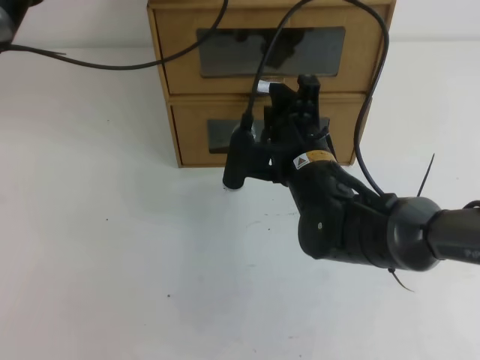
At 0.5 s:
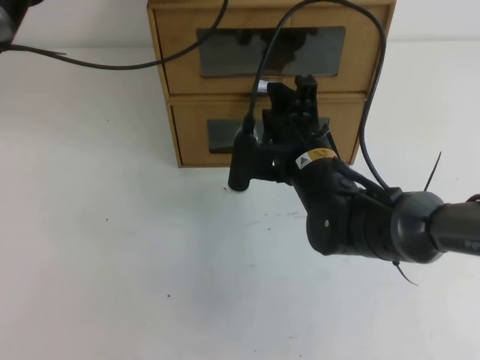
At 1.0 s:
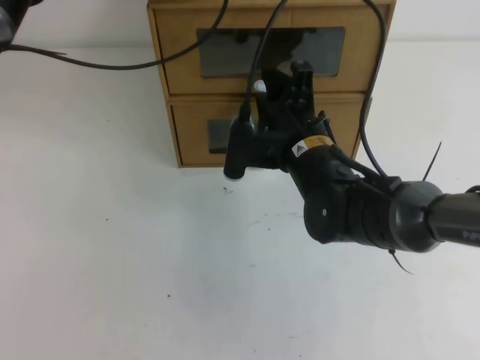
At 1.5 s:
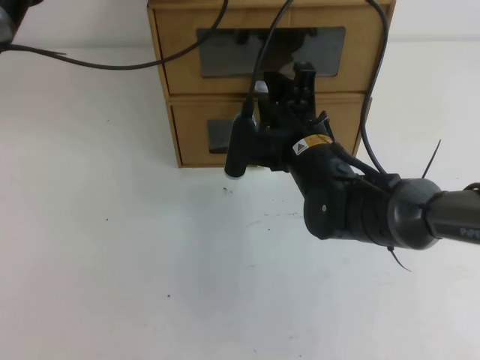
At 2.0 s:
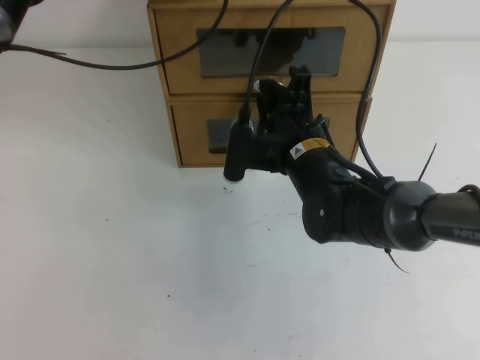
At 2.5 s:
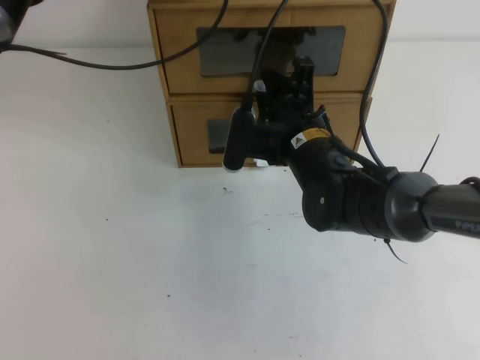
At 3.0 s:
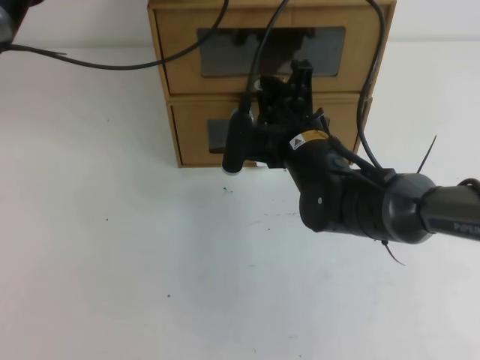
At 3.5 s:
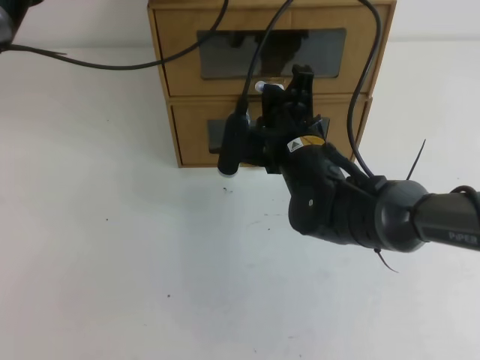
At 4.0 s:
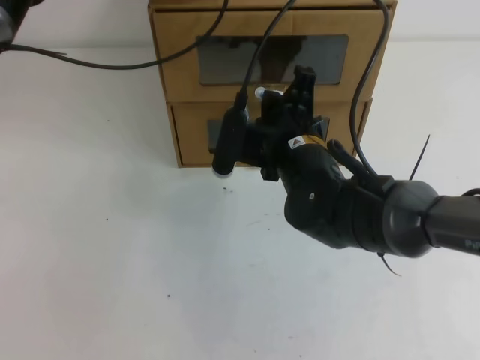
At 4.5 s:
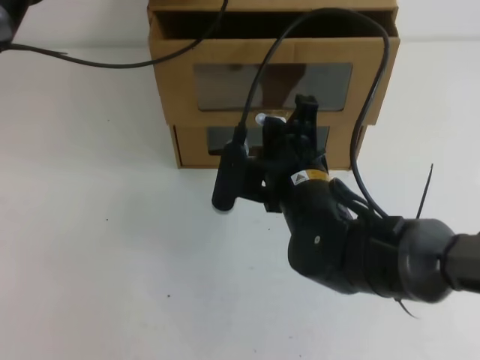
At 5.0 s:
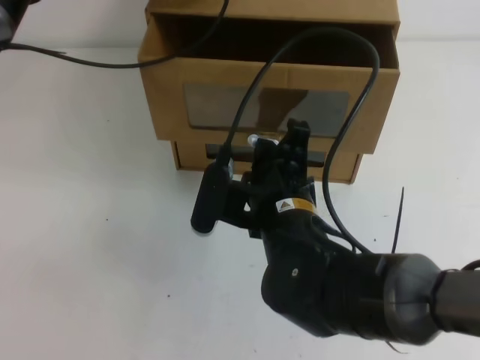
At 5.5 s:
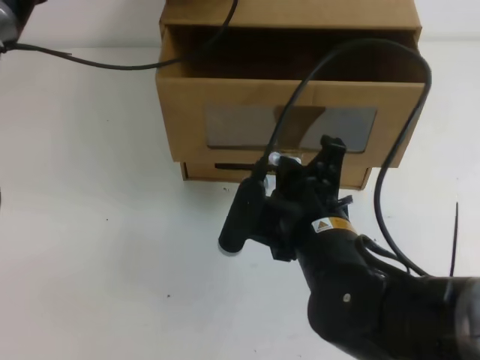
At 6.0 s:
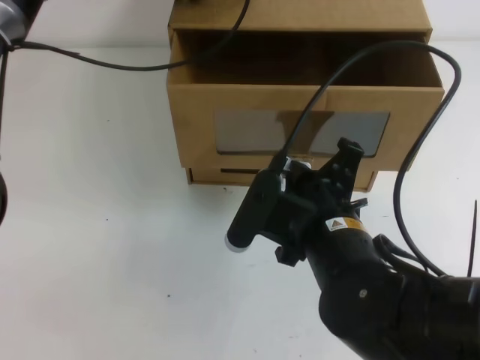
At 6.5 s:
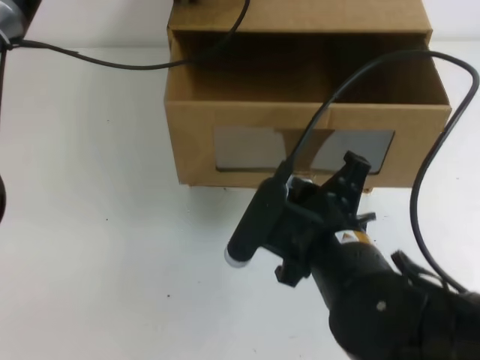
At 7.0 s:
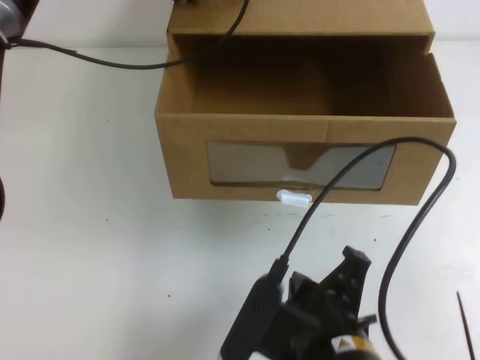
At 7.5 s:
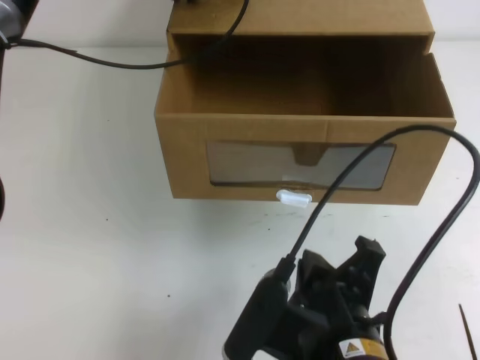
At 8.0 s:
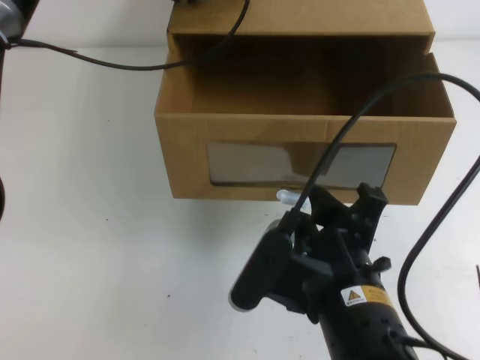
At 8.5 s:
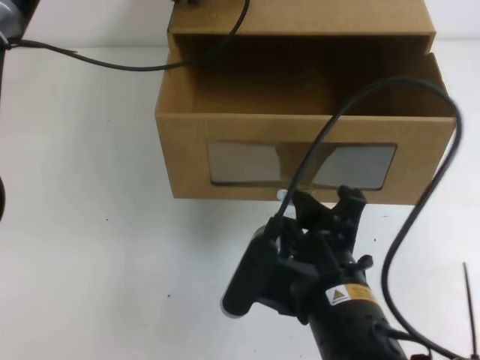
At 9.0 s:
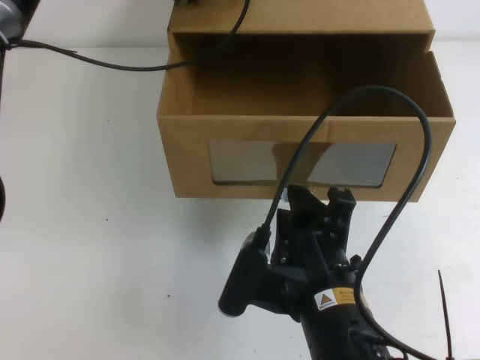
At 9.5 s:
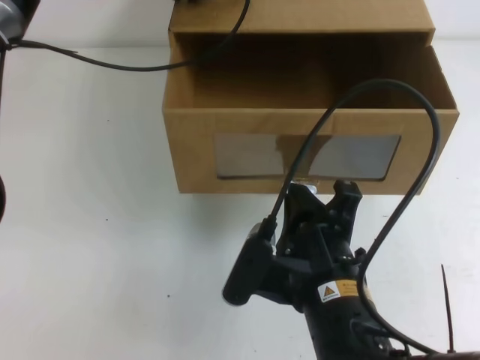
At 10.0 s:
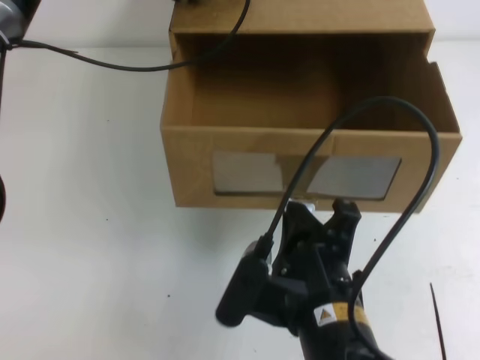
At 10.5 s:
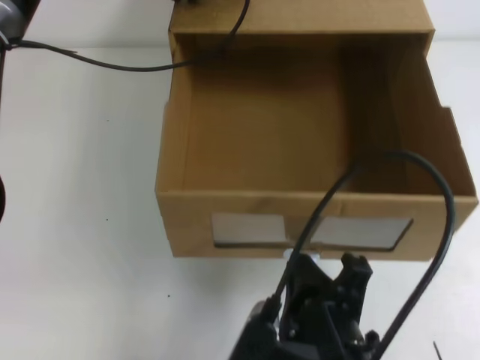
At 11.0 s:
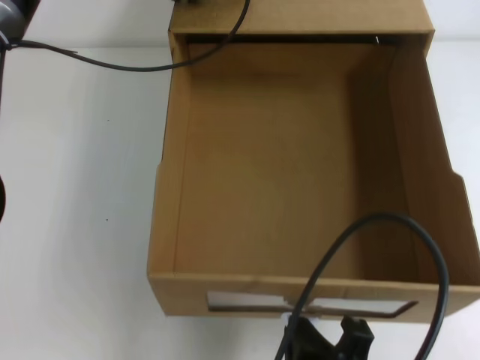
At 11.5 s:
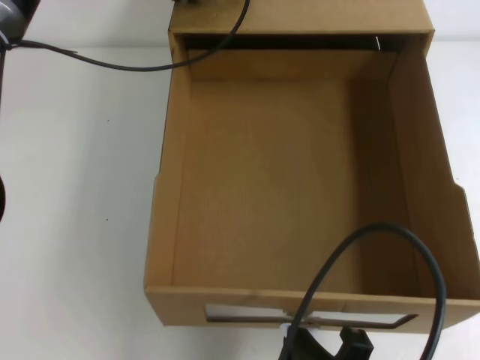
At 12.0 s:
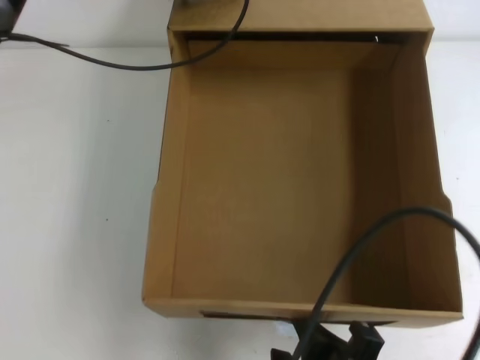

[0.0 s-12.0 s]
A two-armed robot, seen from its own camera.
Task of the whole recording: open the shoebox on the table.
0.0 to 2.0 s: The grippers move only a little.
2.0 to 4.0 s: The right gripper closes up.
4.0 to 6.0 s: The right gripper shifts approximately 10 cm backward.
6.0 to 8.0 s: The right gripper heads backward, covering approximately 5 cm, and opens up.
8.0 to 10.0 s: The right gripper closes its fingers.
10.0 to 12.0 s: The right gripper goes roughly 10 cm backward, and opens up.

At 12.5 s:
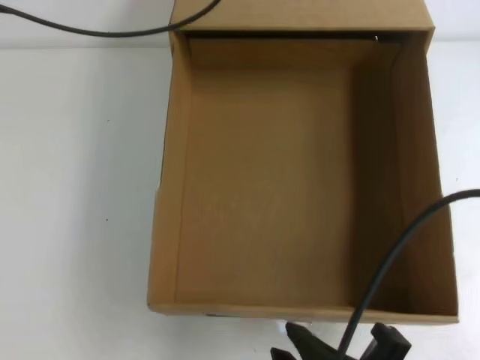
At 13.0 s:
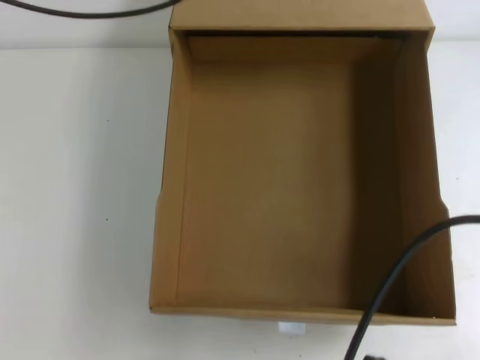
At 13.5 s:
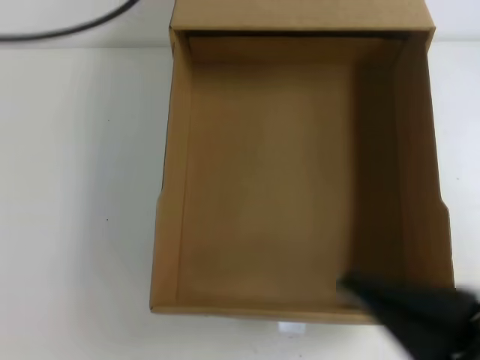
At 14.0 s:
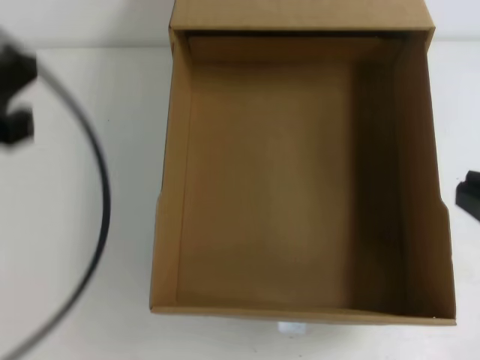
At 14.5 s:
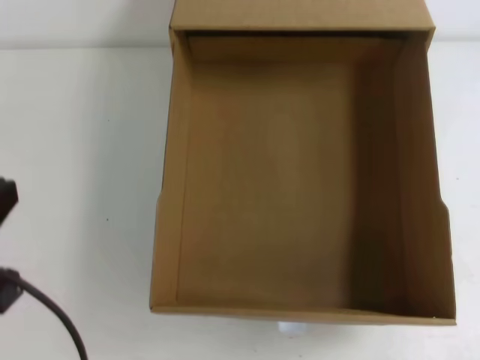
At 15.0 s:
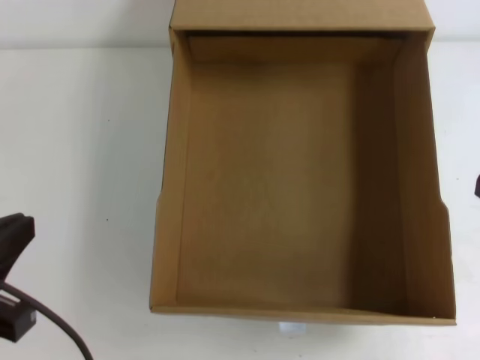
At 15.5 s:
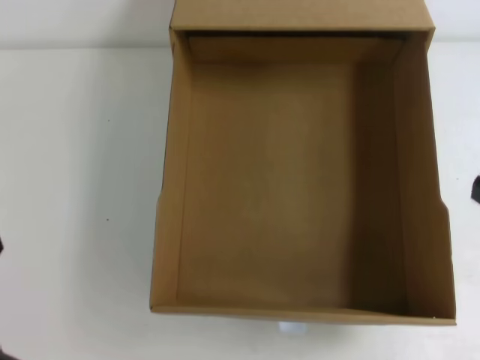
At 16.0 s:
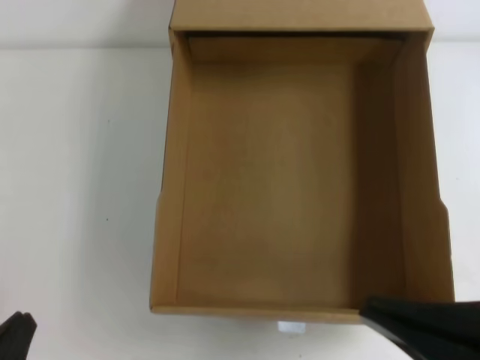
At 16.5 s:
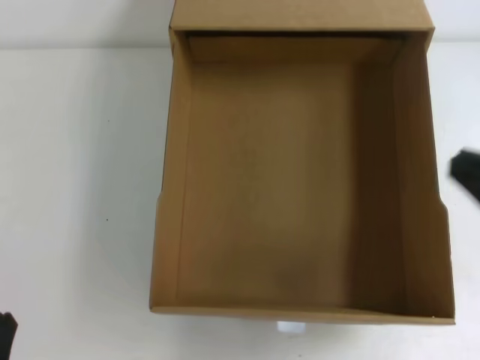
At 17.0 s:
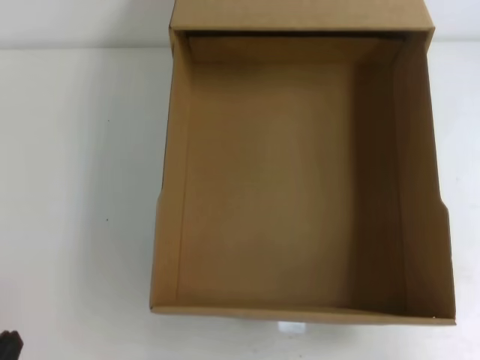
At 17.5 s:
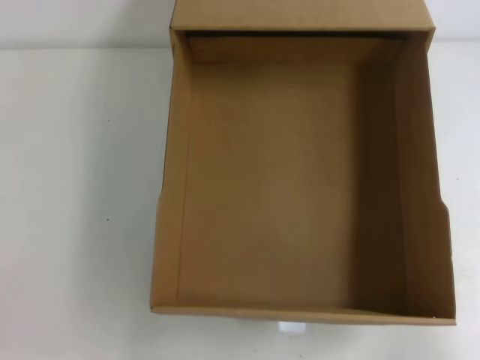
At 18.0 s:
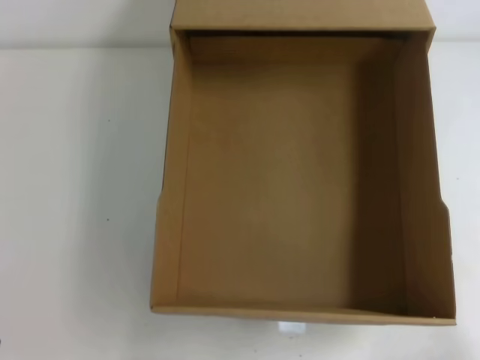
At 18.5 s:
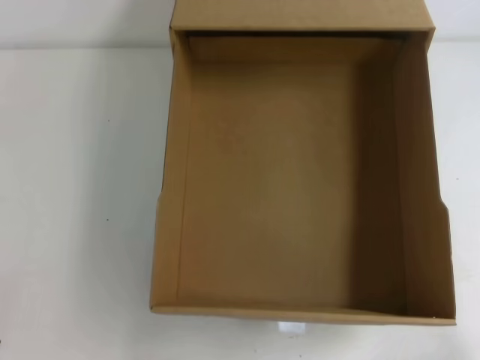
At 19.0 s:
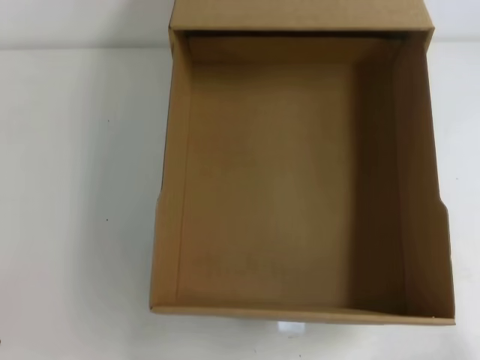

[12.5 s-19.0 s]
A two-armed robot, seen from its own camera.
Task of the whole recording: open the shoebox on the table.
Step, 12.5 to 19.0 s: Open the shoe box.
12.5 to 14.5 s: The left gripper is displaced backward by about 30 cm; the right gripper shifts about 20 cm to the right and upward, and closes up.
14.5 to 17.0 s: The left gripper is displaced downward by some 15 cm.
17.0 to 19.0 s: The right gripper shifts some 15 cm downward.

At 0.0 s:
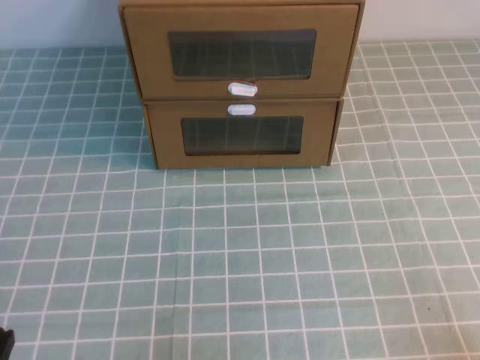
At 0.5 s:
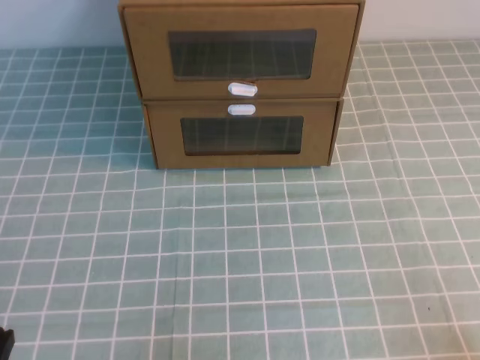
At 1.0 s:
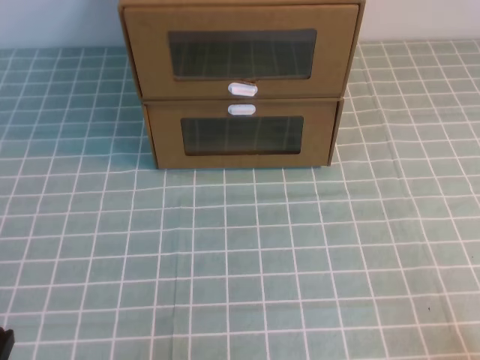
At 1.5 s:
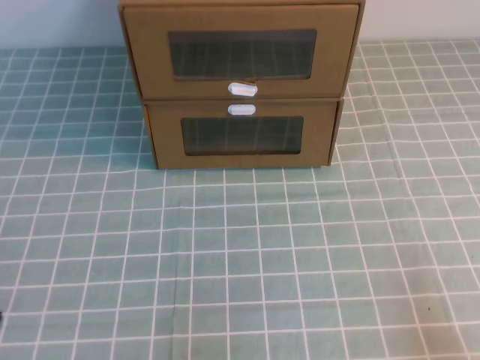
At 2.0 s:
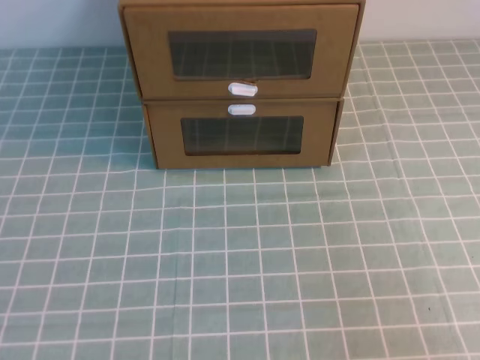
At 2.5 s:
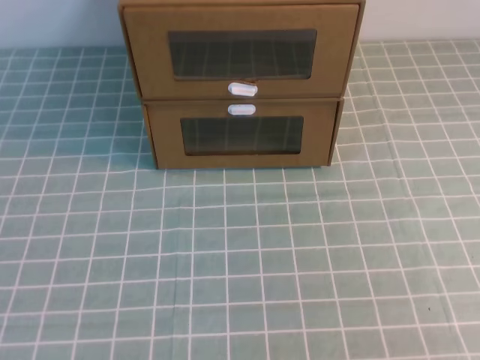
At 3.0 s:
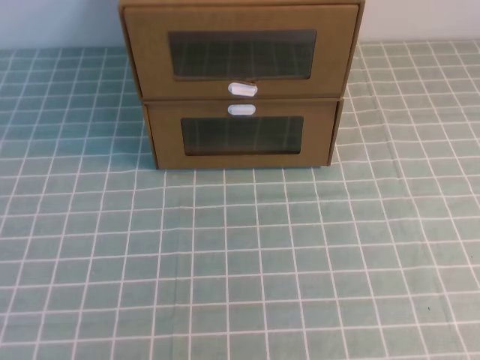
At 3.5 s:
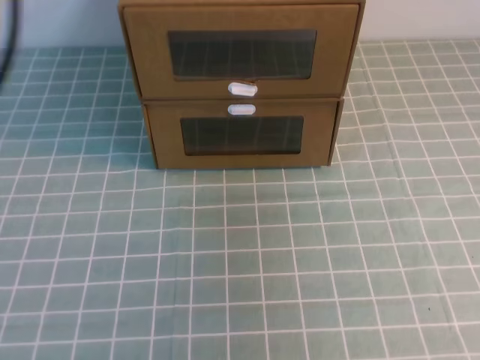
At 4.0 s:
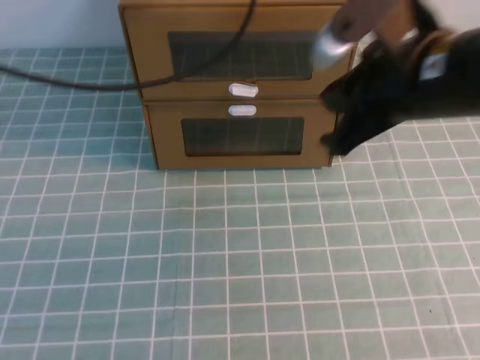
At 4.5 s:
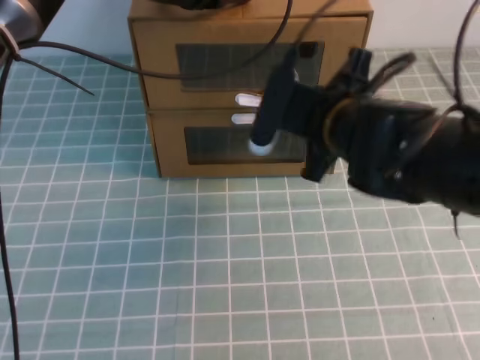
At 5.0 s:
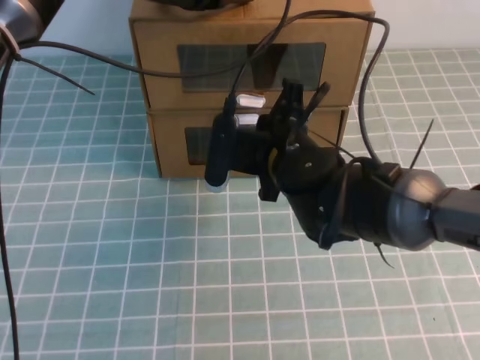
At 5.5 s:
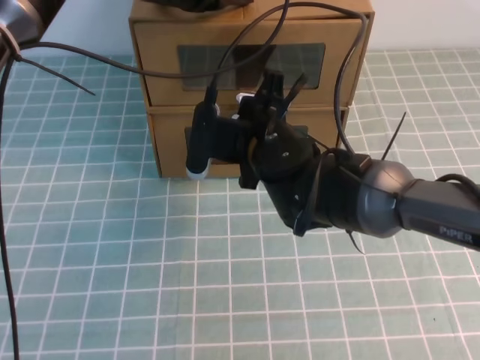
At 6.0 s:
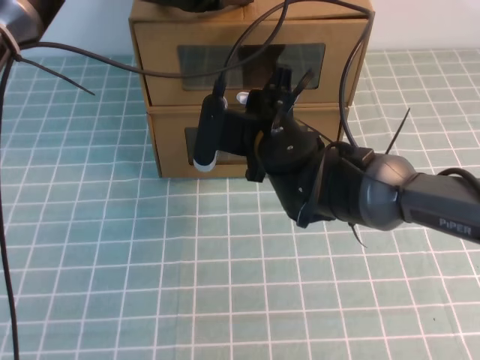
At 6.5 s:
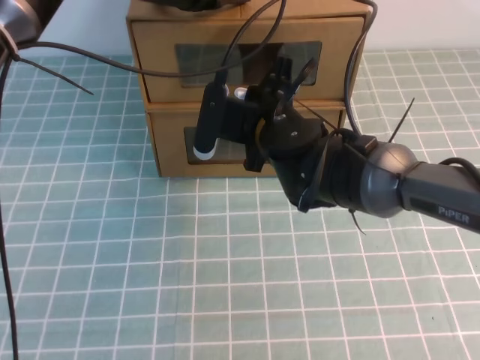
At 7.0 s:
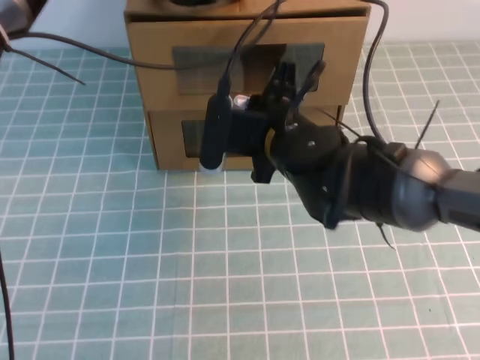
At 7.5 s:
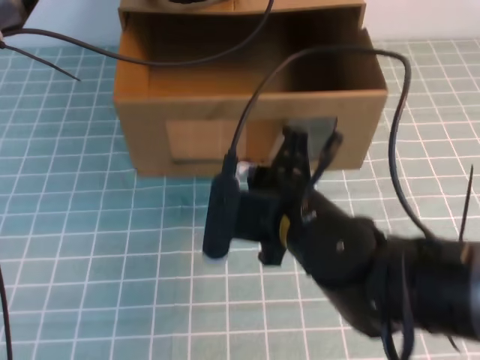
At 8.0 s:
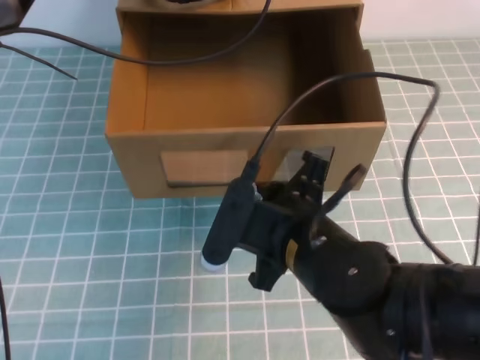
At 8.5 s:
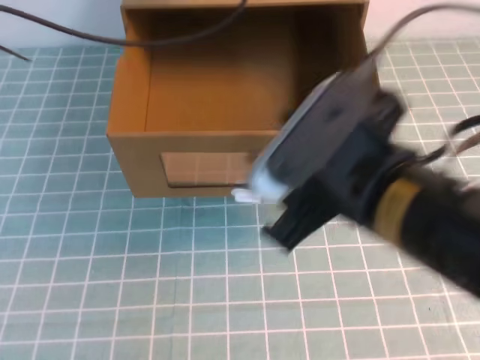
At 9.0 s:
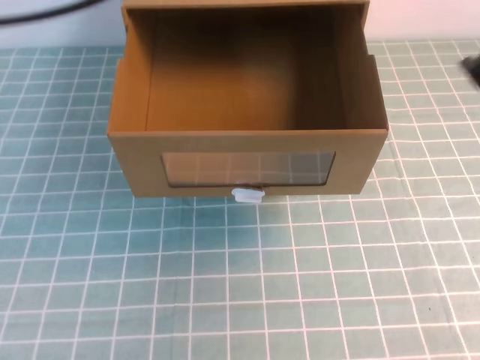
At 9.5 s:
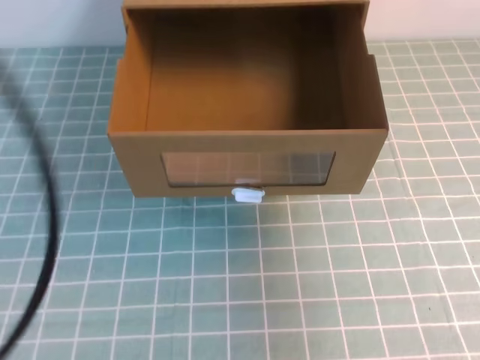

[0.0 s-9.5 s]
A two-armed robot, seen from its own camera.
Task of the whole recording: open the shoebox on the cyan tablecloth.
2.0 to 4.0 s: The right gripper travels forward, to the left and upward by roughly 30 cm. Meanwhile the left gripper moves forward, upward and to the right, some 40 cm.
4.0 to 5.5 s: The left gripper shifts about 10 cm forward and downward. Meanwhile the right gripper shifts roughly 20 cm to the left, downward and forward, and opens.
5.5 to 7.5 s: The right gripper shifts approximately 10 cm backward, and closes.
7.5 to 9.5 s: The left gripper is displaced backward by roughly 35 cm, while the right gripper shifts about 30 cm to the right and upward, and opens, then closes again.
